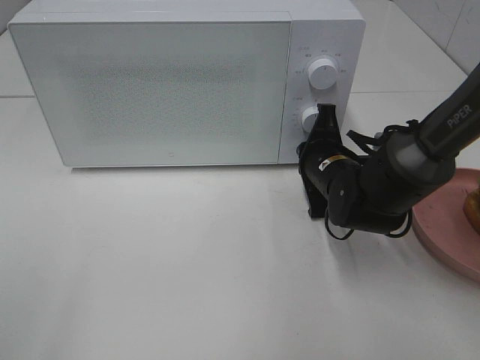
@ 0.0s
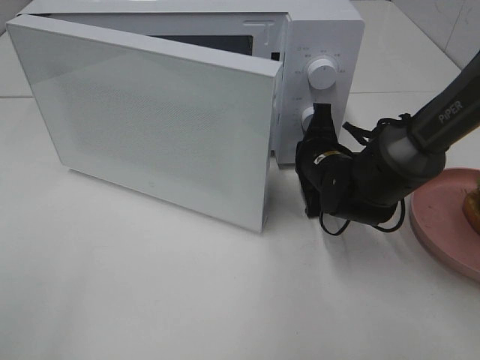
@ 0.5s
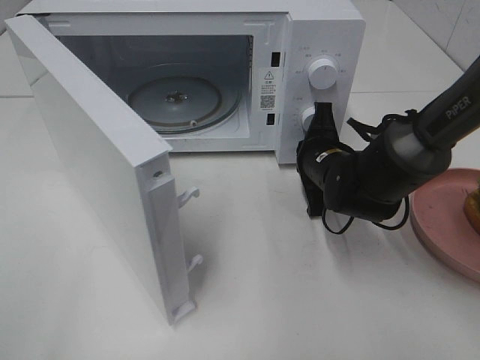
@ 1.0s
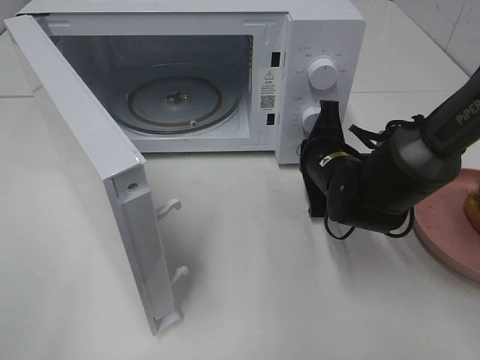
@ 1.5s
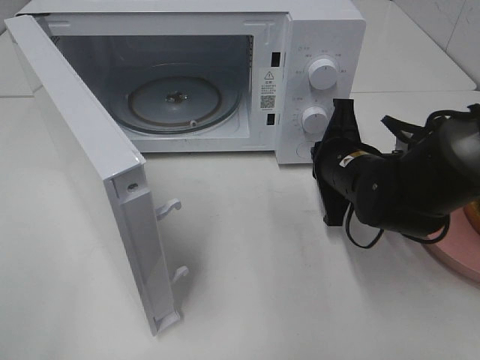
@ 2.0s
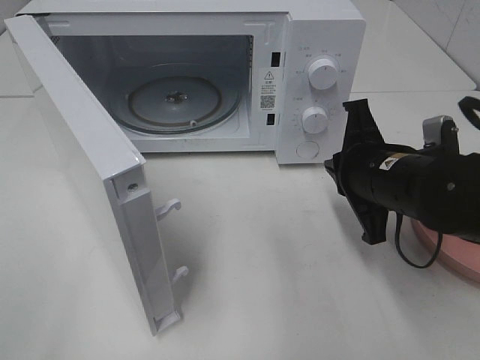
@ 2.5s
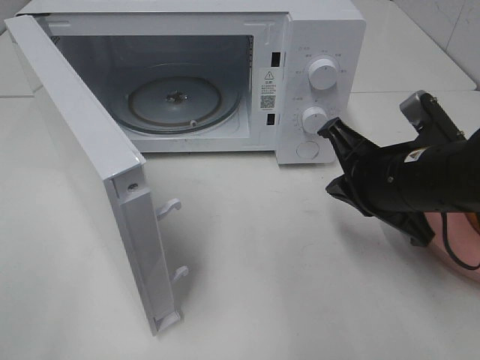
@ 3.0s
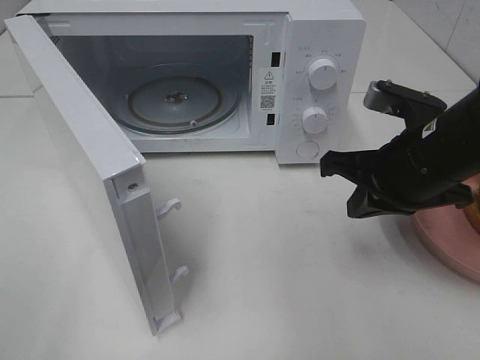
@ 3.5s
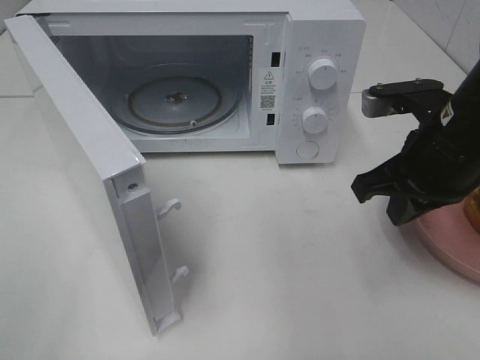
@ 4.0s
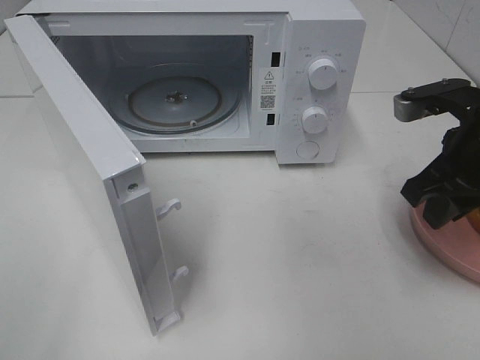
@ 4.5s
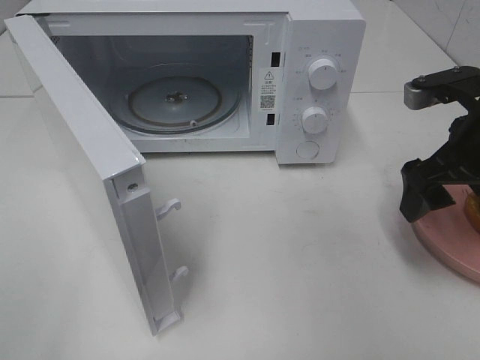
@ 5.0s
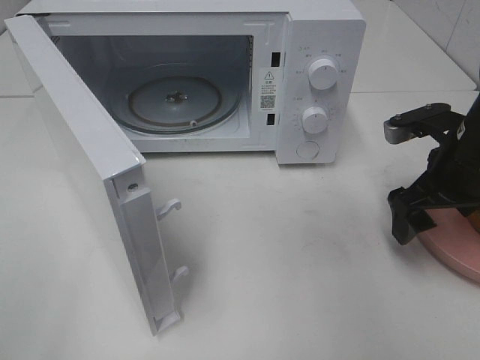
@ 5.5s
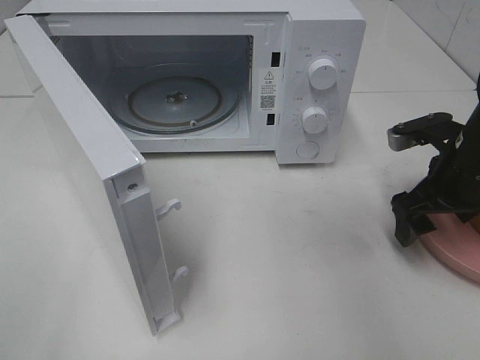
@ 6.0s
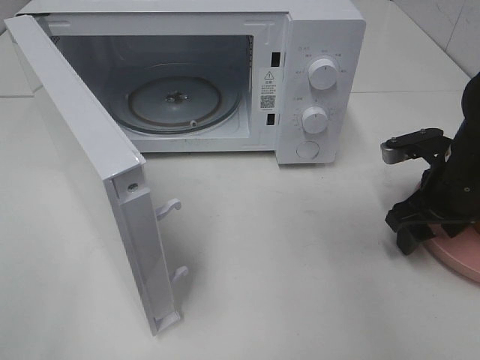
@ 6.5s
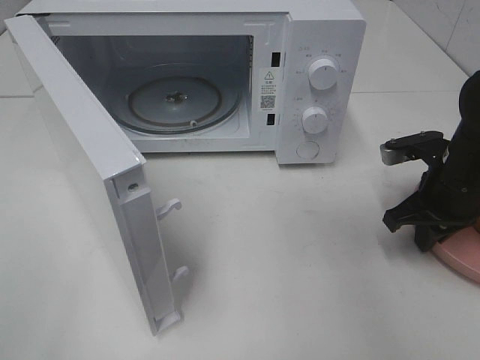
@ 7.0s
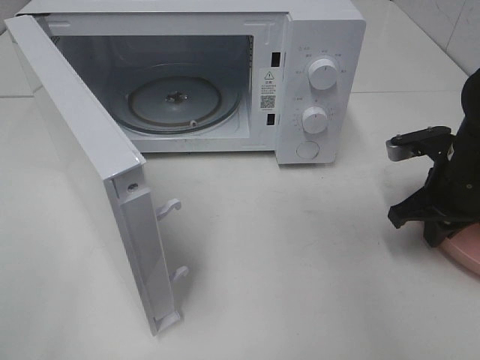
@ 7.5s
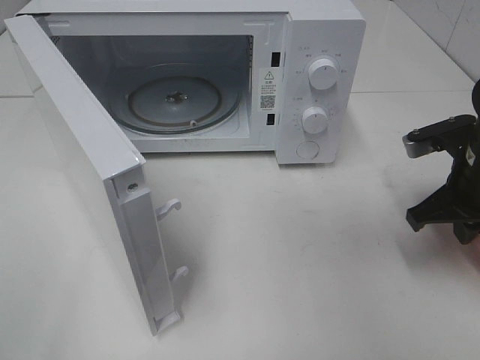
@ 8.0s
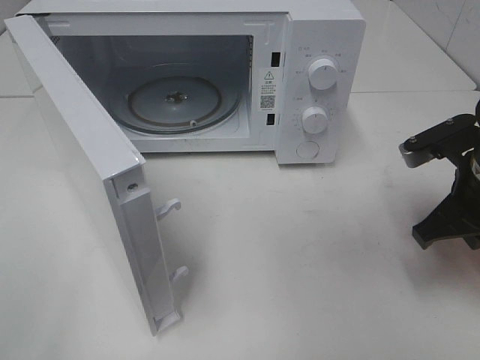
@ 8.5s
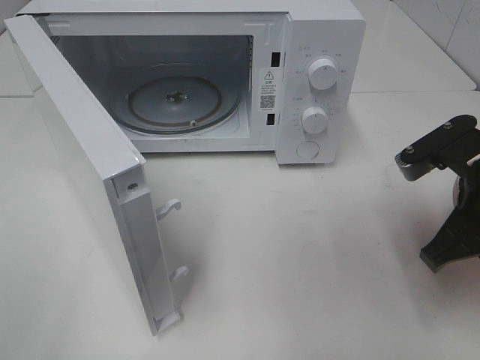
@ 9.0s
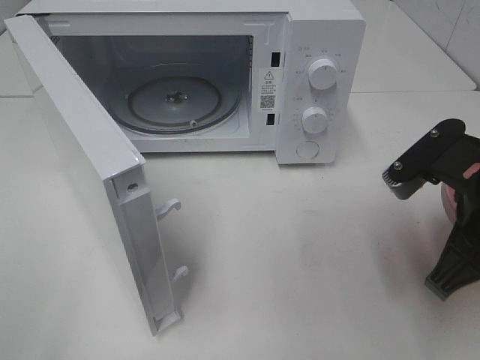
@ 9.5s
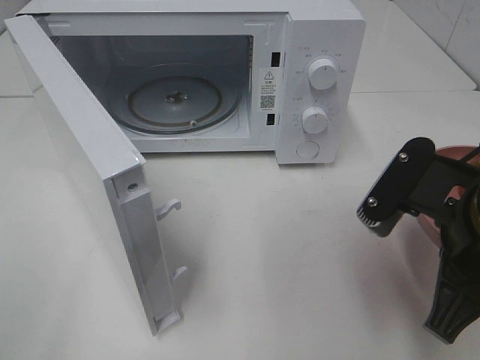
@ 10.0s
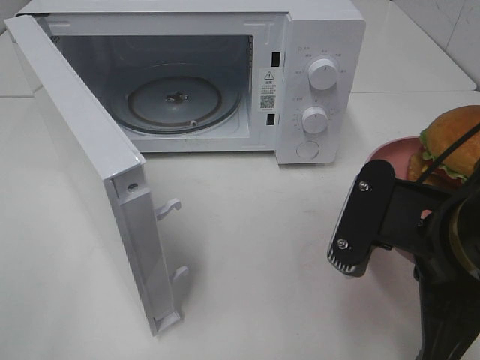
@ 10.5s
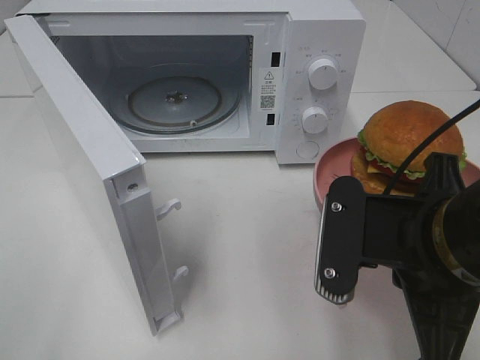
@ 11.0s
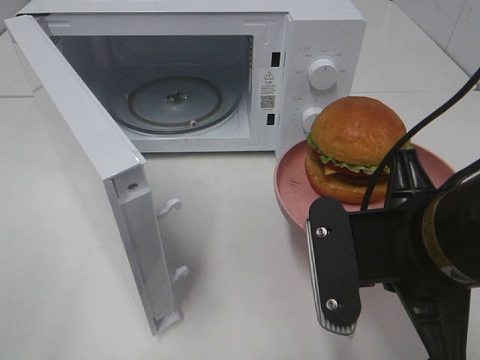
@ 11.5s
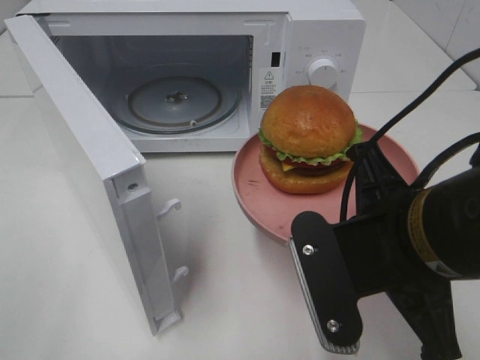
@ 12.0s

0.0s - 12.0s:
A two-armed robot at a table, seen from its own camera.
Task of the whole recording: Heat the burger.
Step, 2.0s - 8.0s: Right hand: grab the plate with the hamburger.
0.0s - 2.0s: The right gripper changes place by about 5 cm.
2.0s - 4.0s: The right gripper moves upward and backward, approximately 10 cm.
4.0s - 6.0s: The right gripper goes some 10 cm downward and to the right, and opens its fingers.
6.0s - 8.0s: The right gripper closes.
8.0s - 10.0s: The right gripper goes some 15 cm backward, to the left and upward.
10.0s - 12.0s: The right gripper is displaced to the left by some 5 cm.

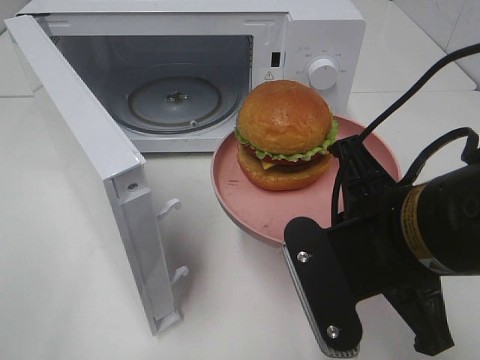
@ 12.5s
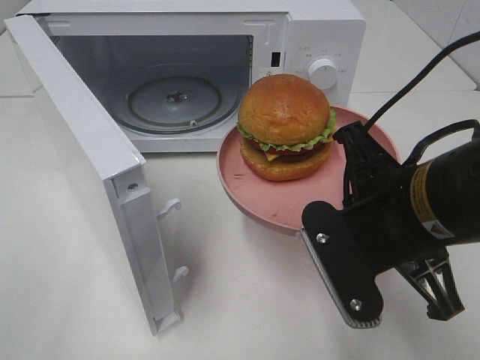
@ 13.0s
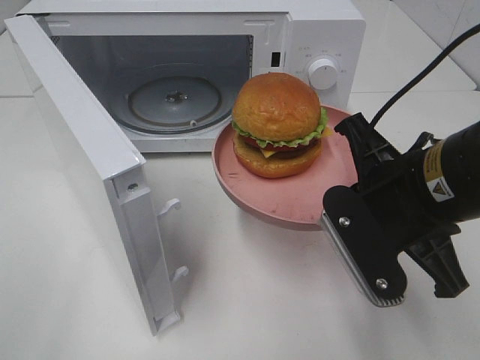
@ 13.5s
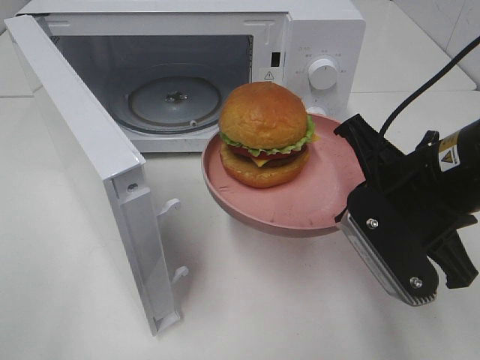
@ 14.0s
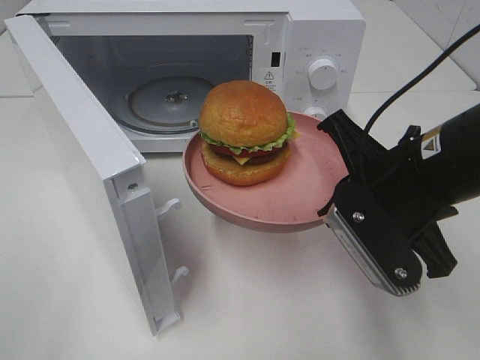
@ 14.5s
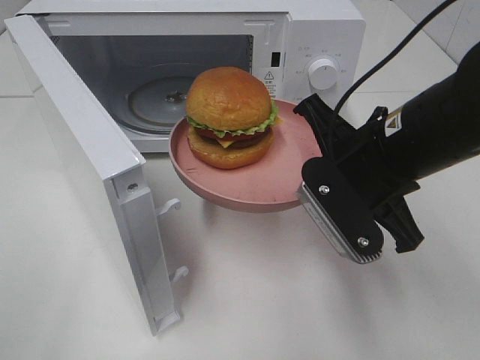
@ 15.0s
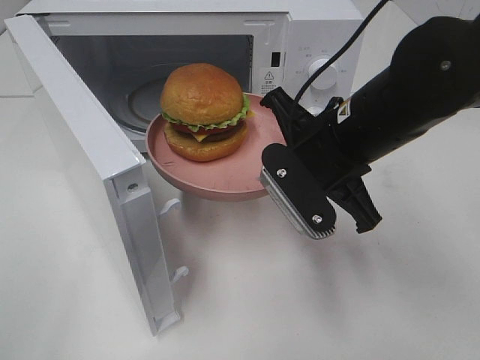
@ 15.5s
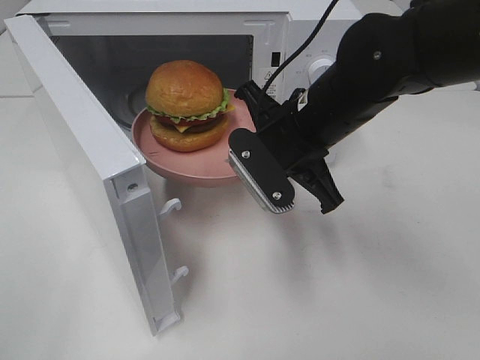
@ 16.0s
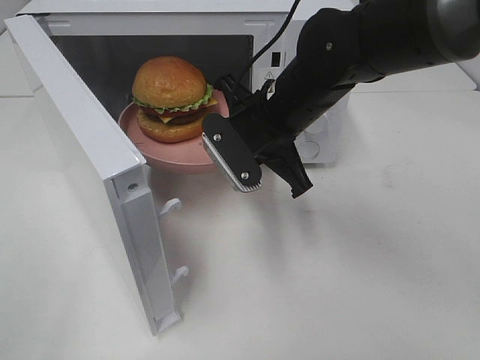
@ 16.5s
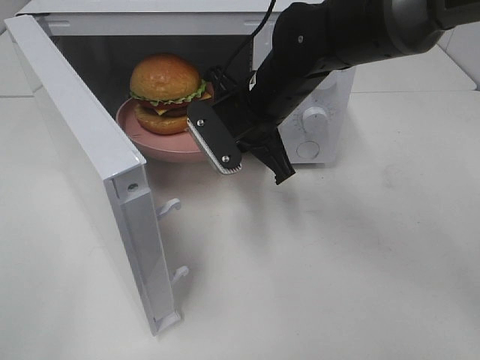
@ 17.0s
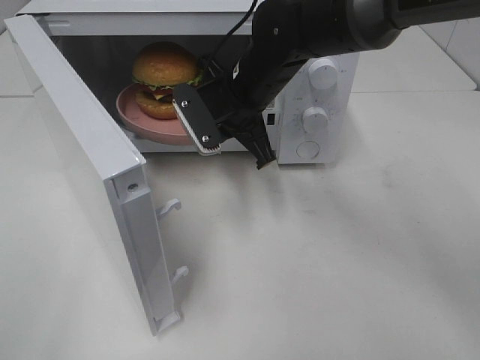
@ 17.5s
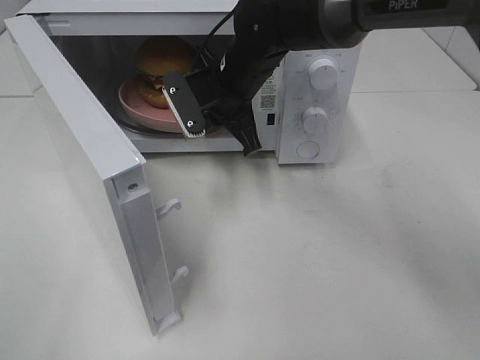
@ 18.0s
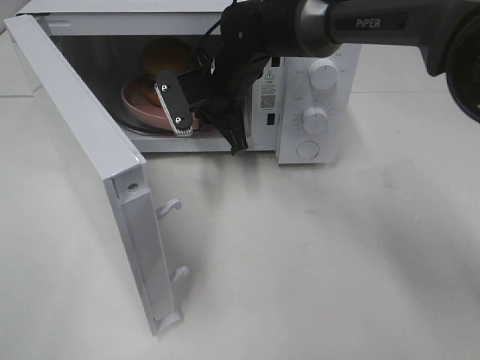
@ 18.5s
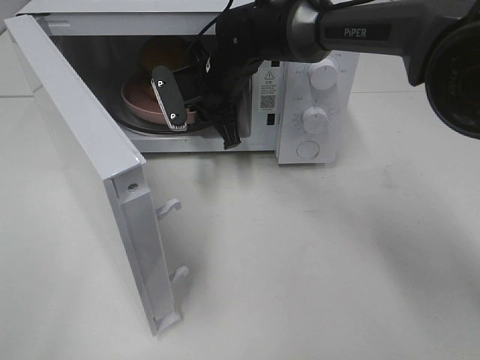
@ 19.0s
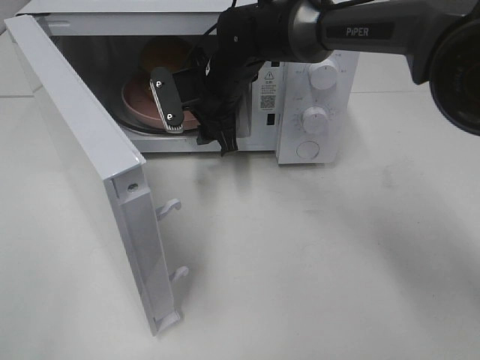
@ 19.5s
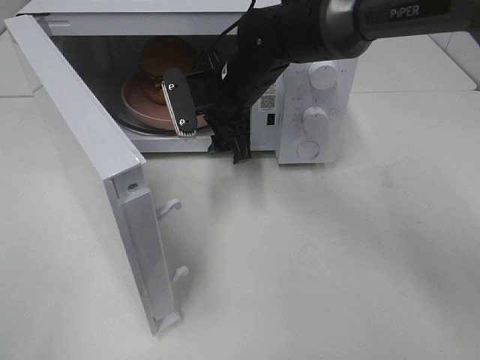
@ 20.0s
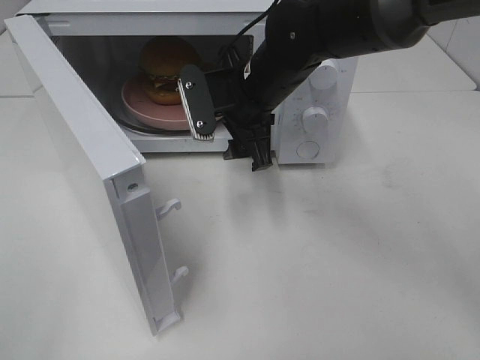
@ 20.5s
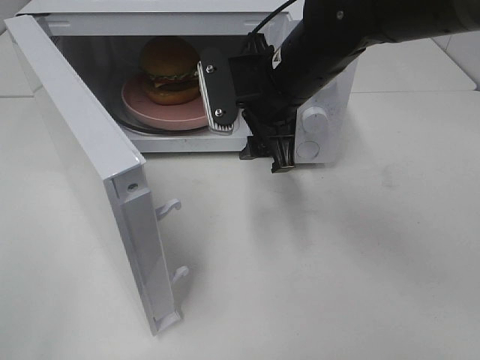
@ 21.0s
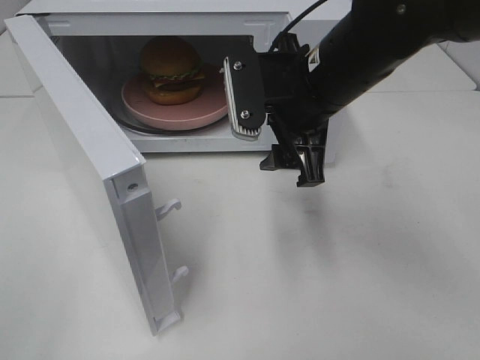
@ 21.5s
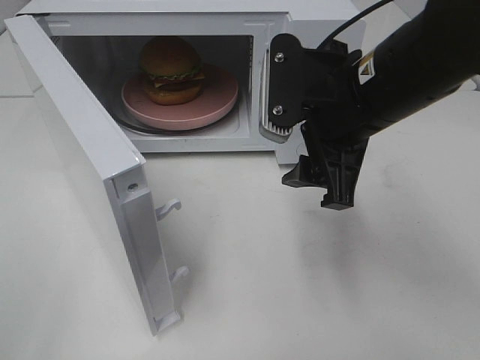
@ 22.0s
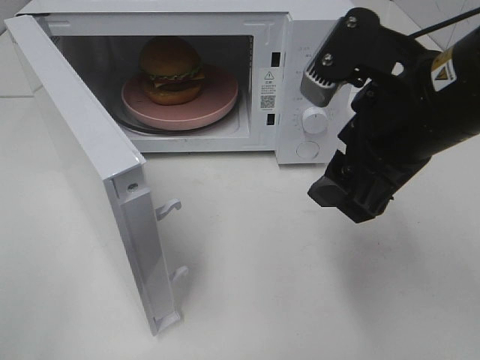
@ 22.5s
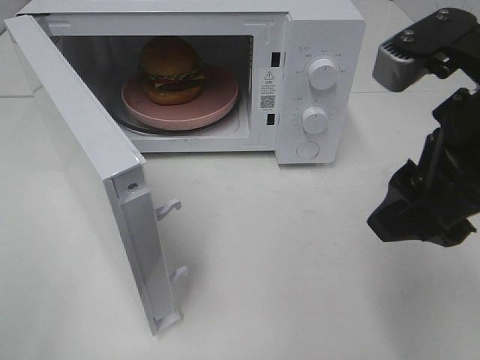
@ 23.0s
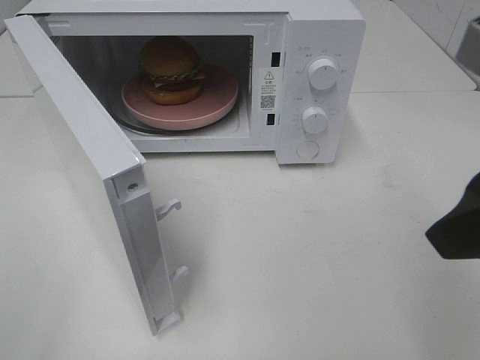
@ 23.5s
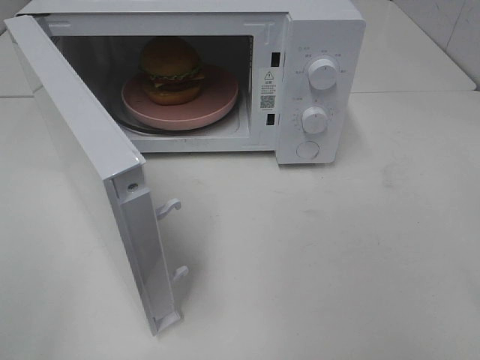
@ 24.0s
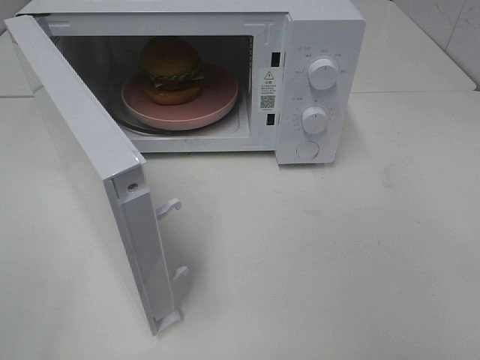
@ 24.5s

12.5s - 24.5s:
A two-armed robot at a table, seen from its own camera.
Task of the whole recording: Heat the burger.
Step, 12.5s - 19.0s: Right hand: place the plate in the microwave.
12.5s - 14.5s: The right gripper moves forward, roughly 5 cm.
14.5s - 16.5s: The right gripper goes about 15 cm forward and to the left.
16.5s - 18.5s: The right gripper shifts about 10 cm forward and to the left.
18.5s - 20.5s: The right gripper goes approximately 5 cm backward, and opens its fingers.
20.5s - 22.5s: The right gripper travels backward, to the right and upward by about 20 cm.
22.5s - 24.5s: The right gripper heads backward and to the right, covering approximately 25 cm.

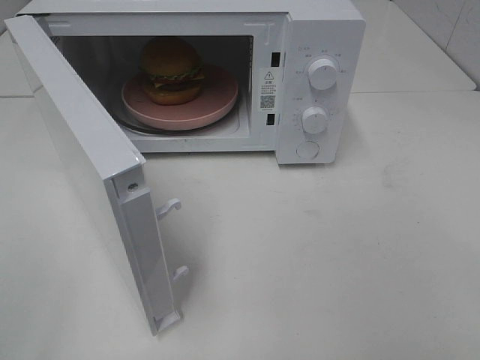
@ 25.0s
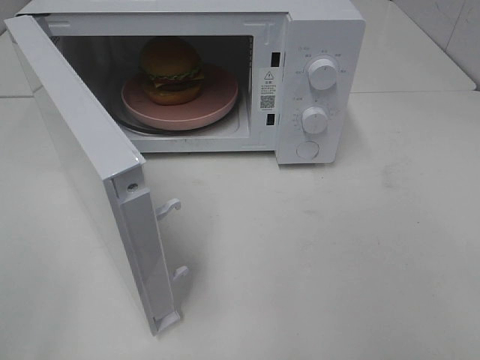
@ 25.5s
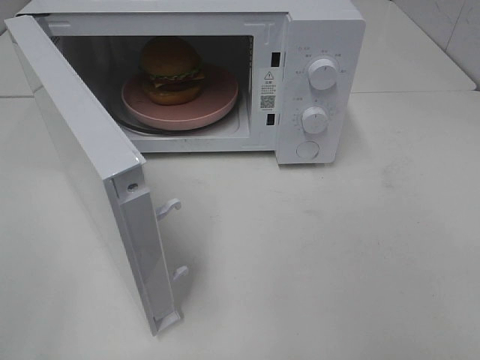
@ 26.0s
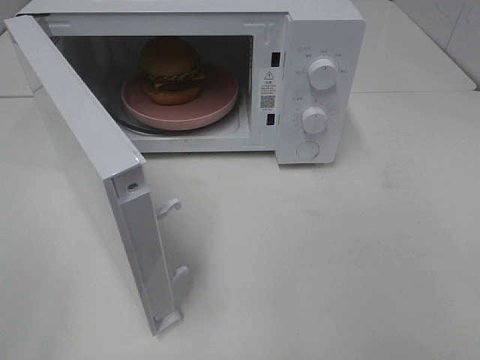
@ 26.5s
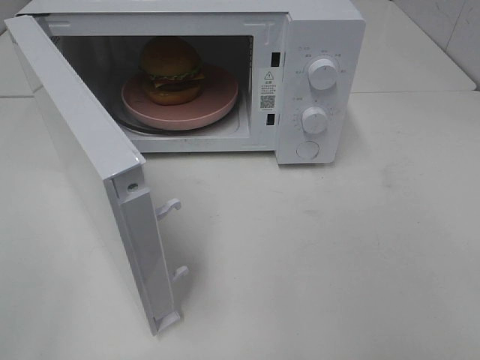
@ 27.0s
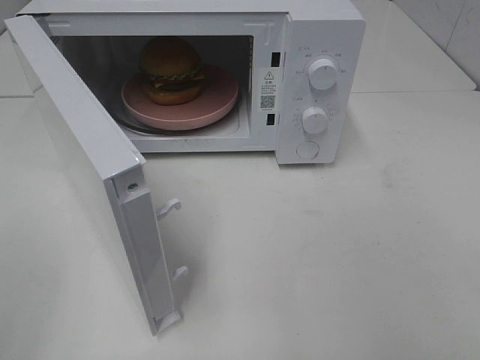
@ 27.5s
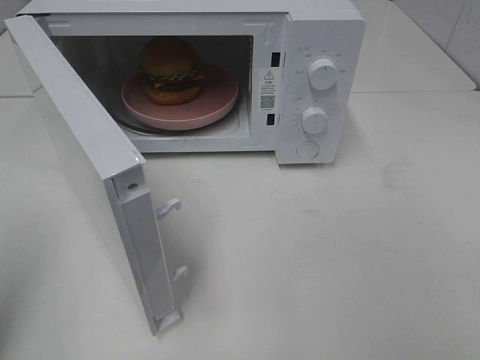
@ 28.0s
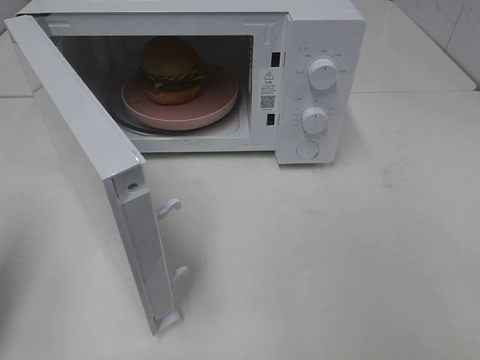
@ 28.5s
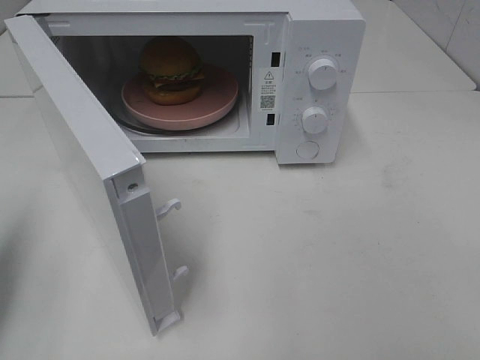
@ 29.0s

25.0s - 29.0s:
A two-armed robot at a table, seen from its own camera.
Task of the whole recording: Heat the burger.
27.0s - 29.0s: The left gripper goes some 15 cm forward, and closes its fingers.
